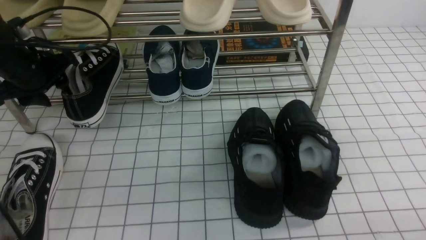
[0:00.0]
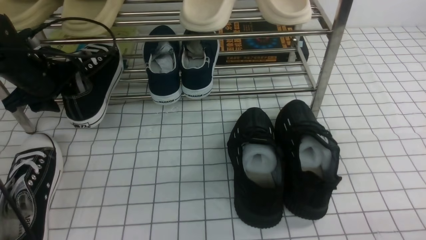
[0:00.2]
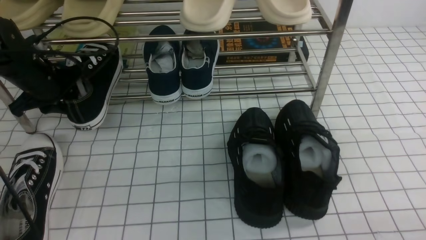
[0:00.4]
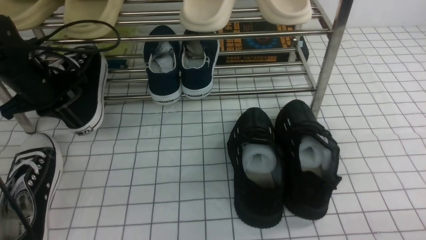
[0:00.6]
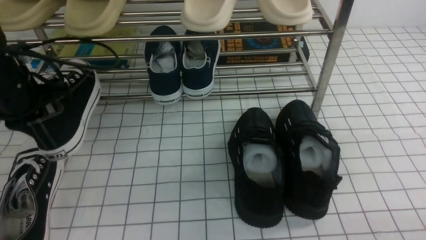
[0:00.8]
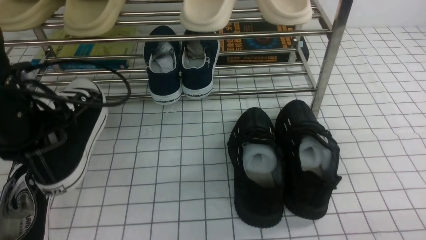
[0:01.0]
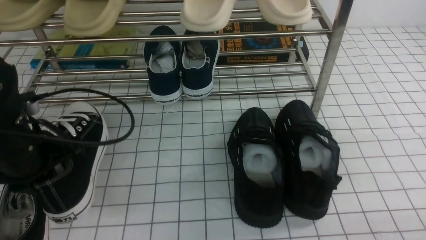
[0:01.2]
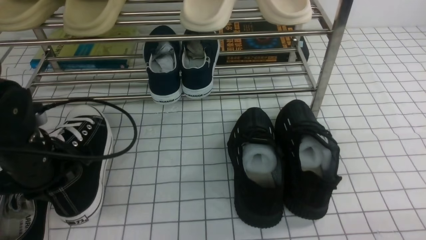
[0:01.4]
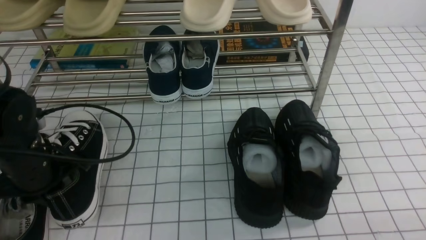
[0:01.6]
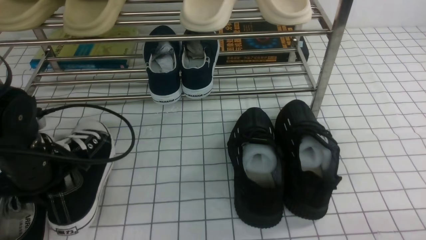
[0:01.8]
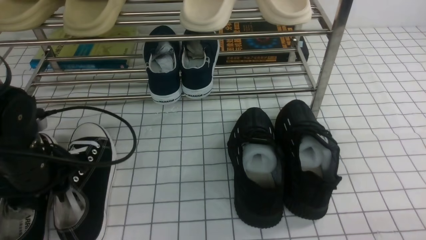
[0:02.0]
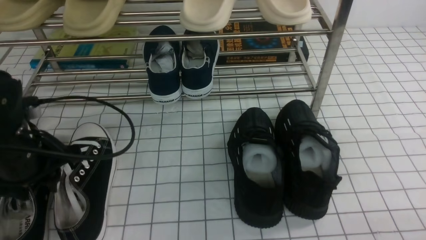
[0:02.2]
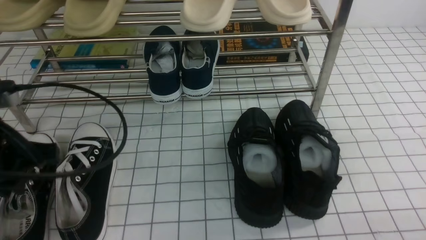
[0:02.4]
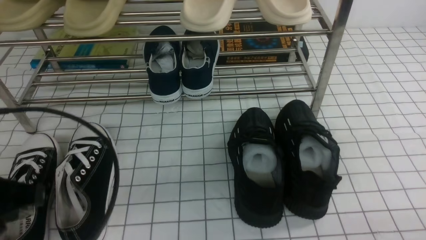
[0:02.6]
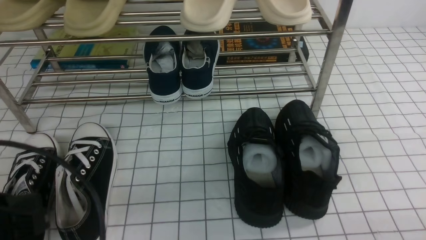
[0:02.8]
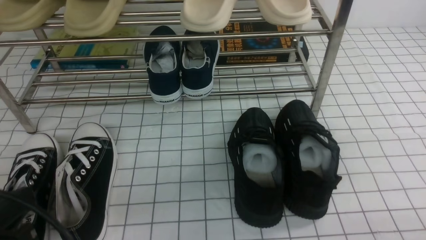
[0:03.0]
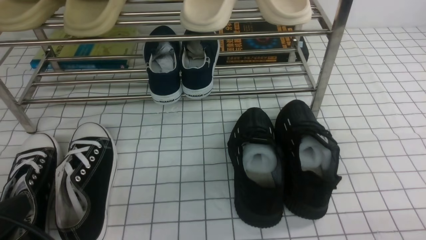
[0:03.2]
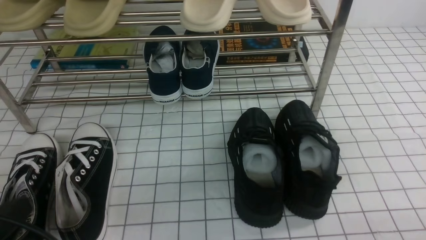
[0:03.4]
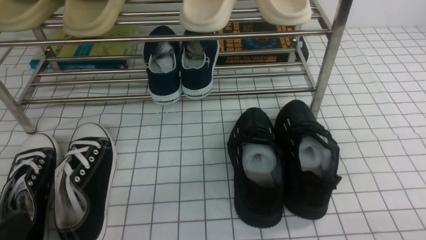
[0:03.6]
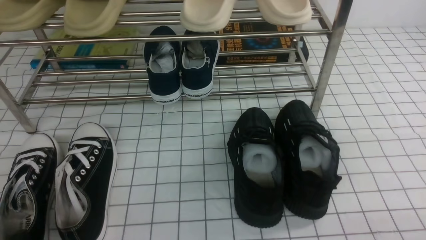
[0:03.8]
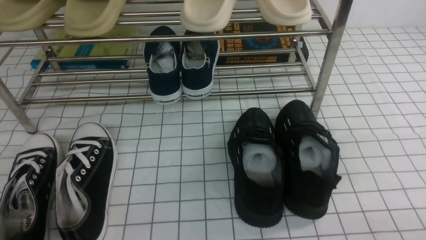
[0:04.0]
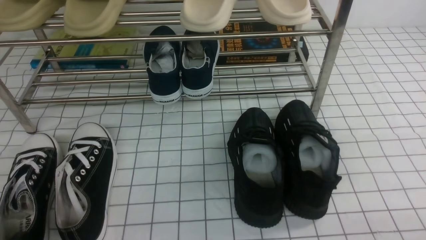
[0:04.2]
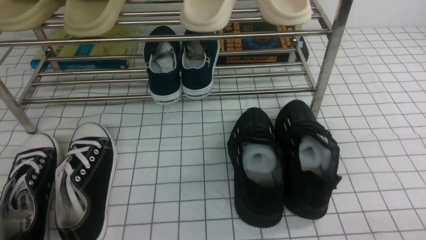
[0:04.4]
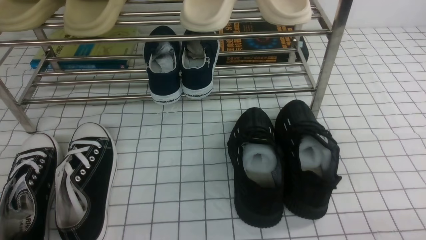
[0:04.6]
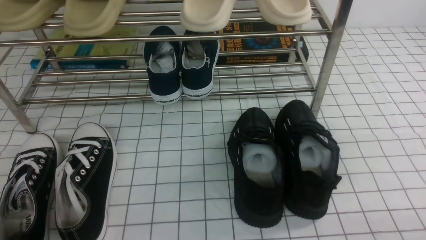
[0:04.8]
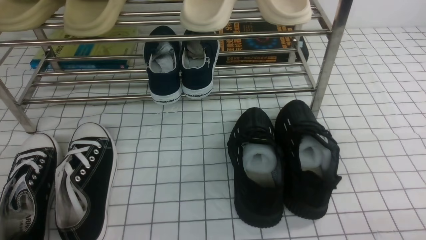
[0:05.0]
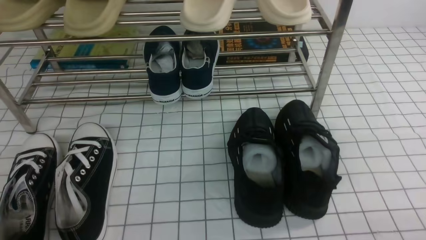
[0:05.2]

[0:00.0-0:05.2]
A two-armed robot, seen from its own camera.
Step, 0:00.6 to 0:02.2: Use your left arm to remove the clamped shoe from the shoe rack and put it down.
0:00.0 to 0:01.8: The left gripper is displaced backward by approximately 15 cm, and closes up.
0:01.8 to 0:03.4: The left gripper goes approximately 20 cm backward, and closes its fingers.
0:03.4 to 0:05.2: The left gripper is displaced downward by about 10 cm.

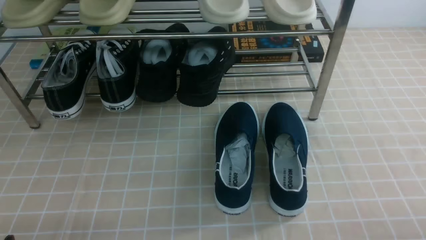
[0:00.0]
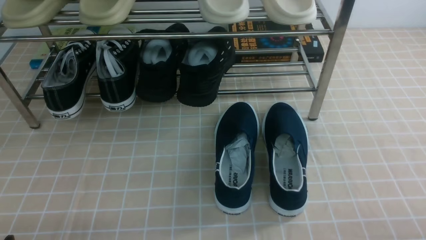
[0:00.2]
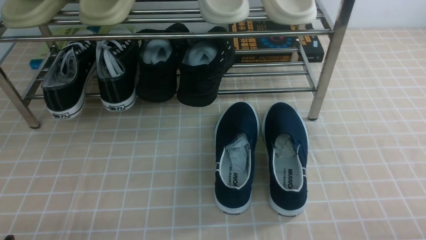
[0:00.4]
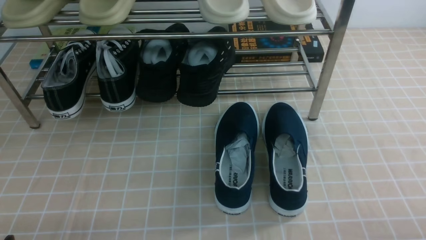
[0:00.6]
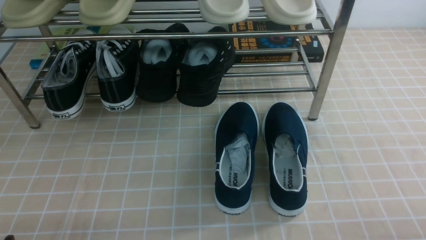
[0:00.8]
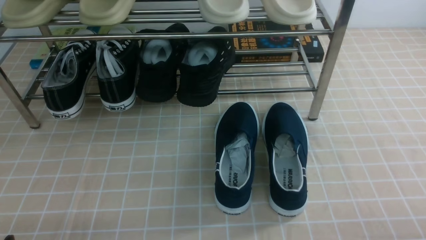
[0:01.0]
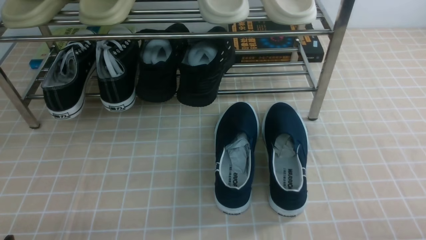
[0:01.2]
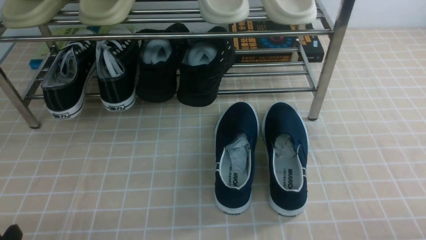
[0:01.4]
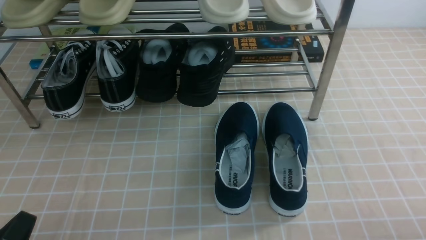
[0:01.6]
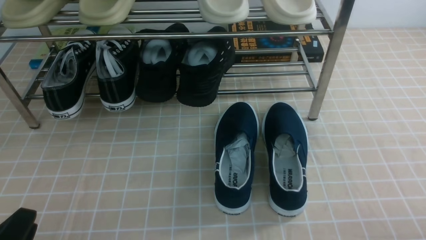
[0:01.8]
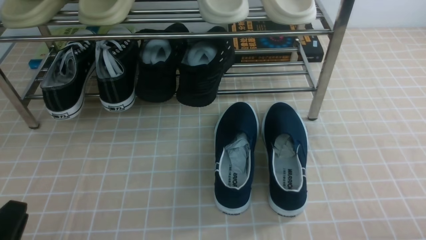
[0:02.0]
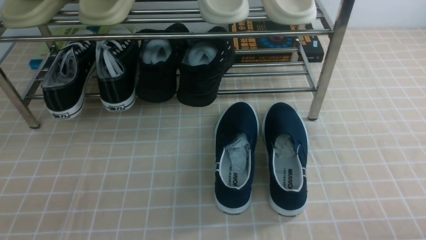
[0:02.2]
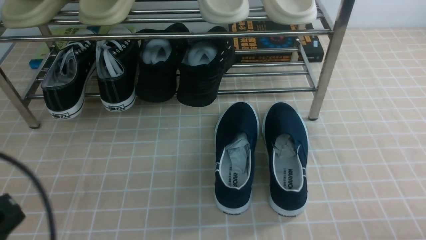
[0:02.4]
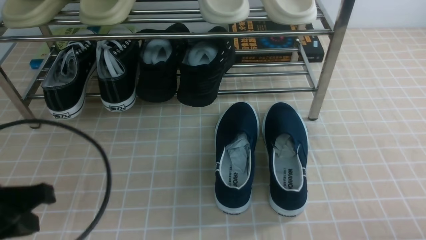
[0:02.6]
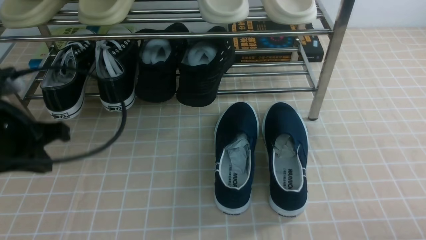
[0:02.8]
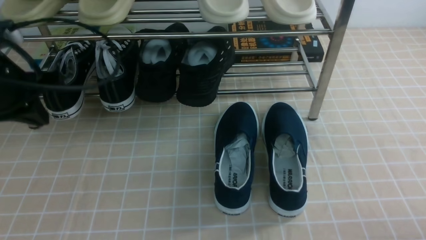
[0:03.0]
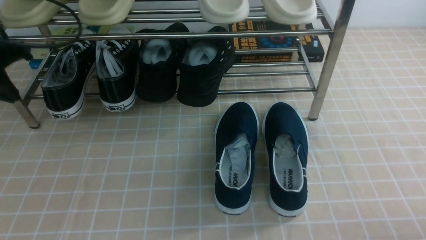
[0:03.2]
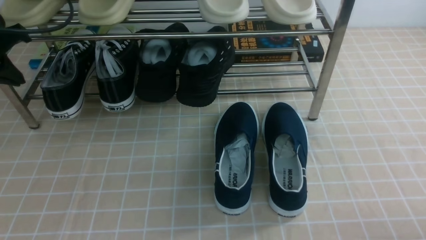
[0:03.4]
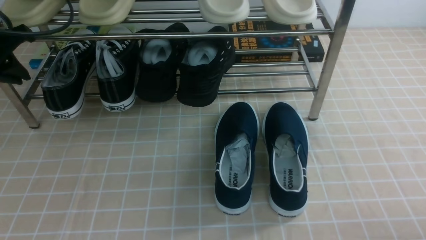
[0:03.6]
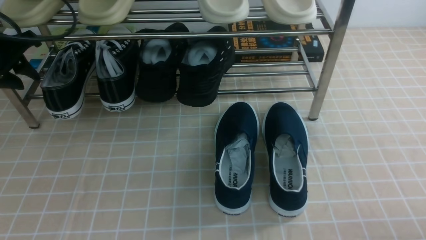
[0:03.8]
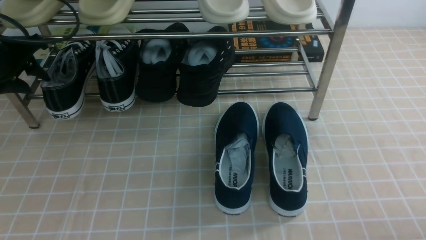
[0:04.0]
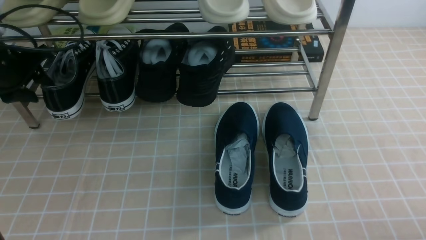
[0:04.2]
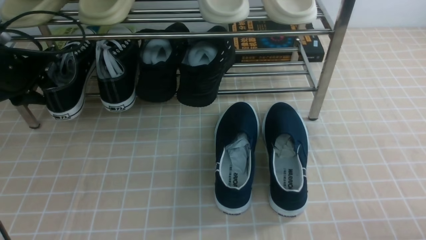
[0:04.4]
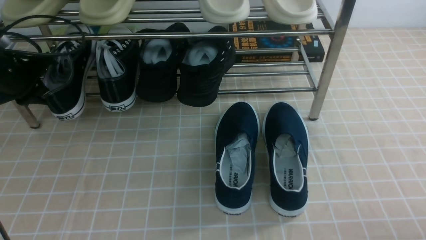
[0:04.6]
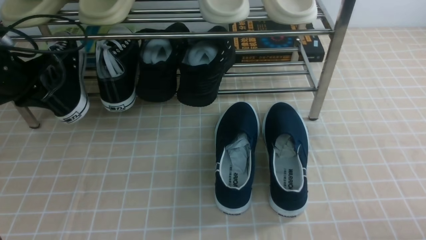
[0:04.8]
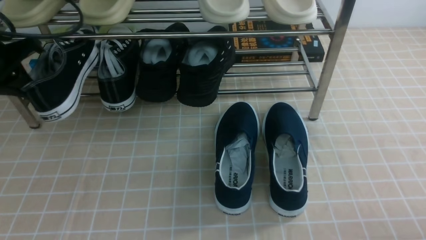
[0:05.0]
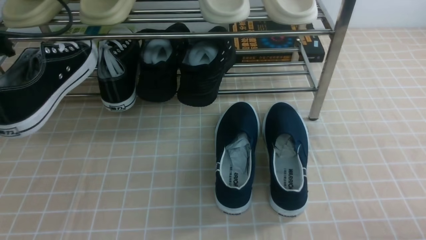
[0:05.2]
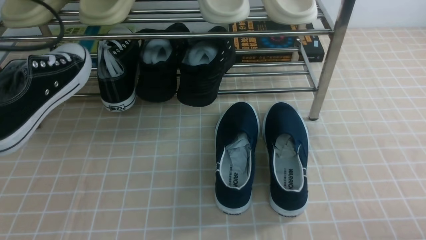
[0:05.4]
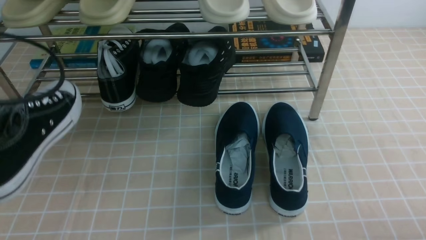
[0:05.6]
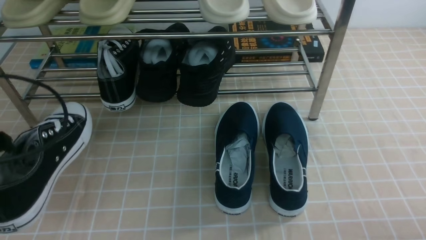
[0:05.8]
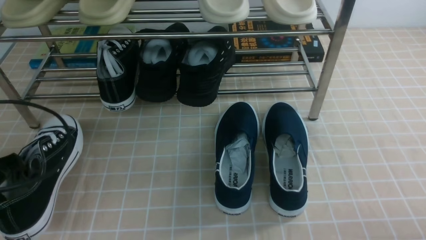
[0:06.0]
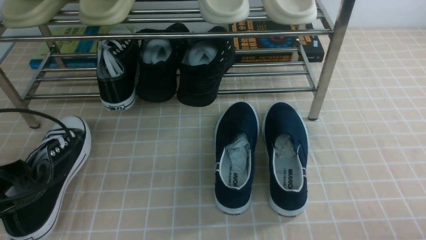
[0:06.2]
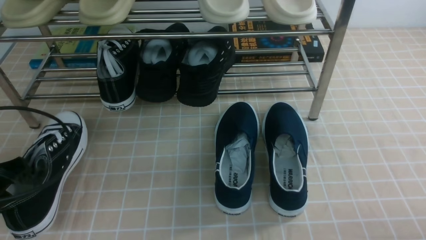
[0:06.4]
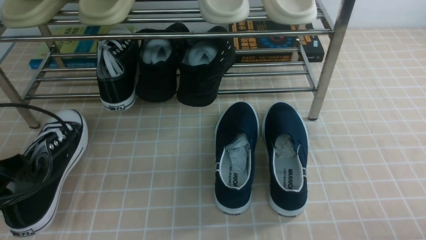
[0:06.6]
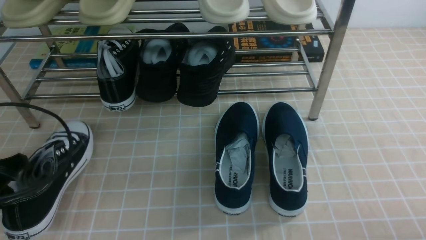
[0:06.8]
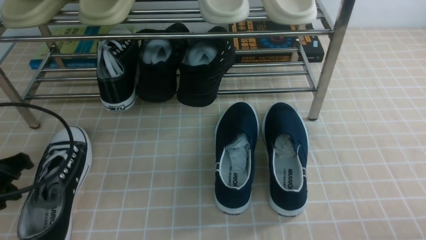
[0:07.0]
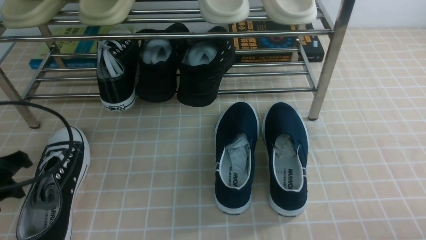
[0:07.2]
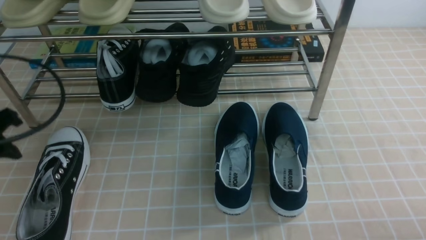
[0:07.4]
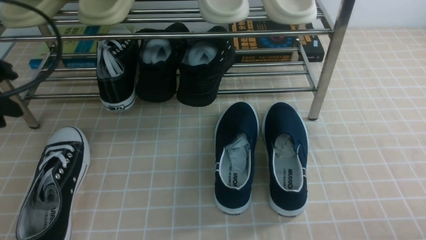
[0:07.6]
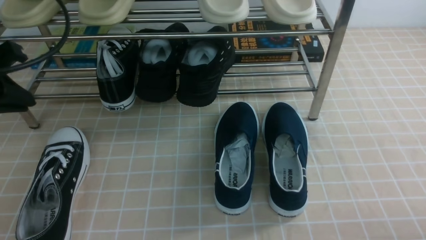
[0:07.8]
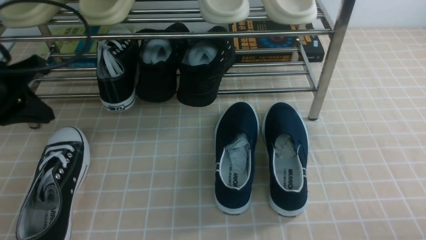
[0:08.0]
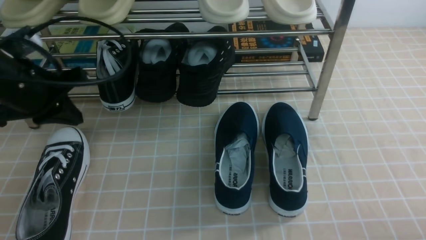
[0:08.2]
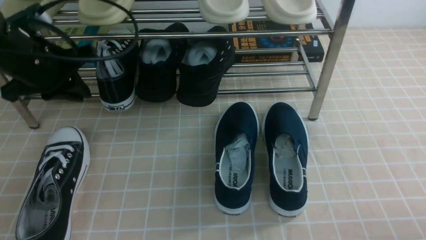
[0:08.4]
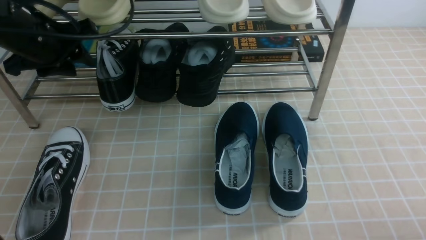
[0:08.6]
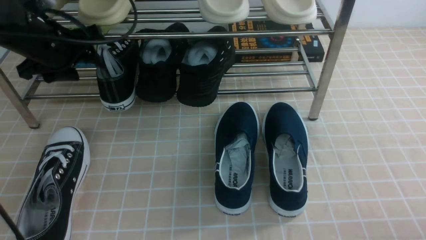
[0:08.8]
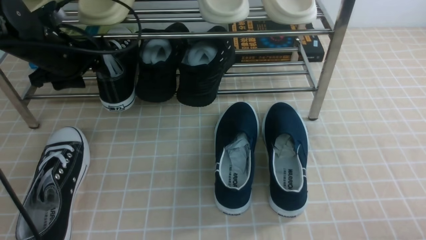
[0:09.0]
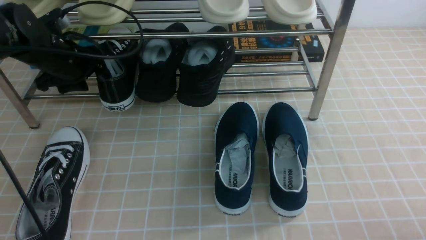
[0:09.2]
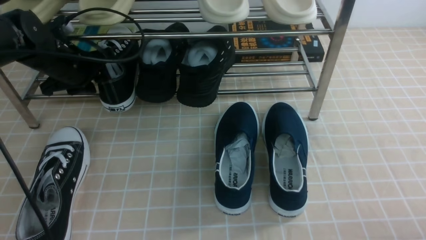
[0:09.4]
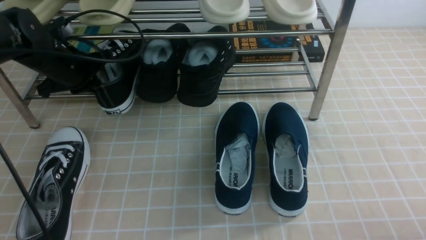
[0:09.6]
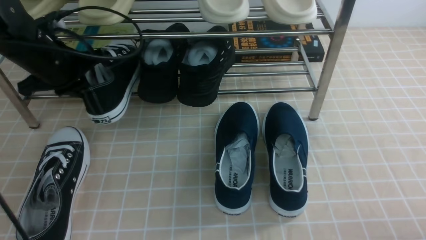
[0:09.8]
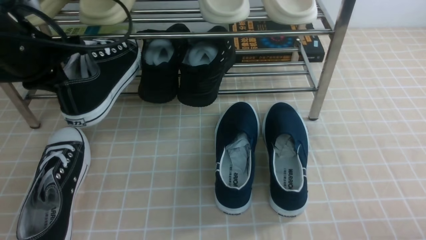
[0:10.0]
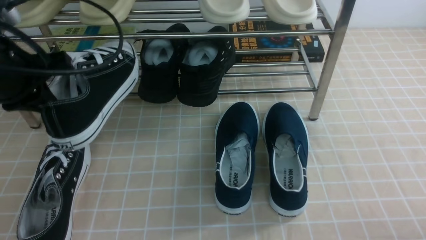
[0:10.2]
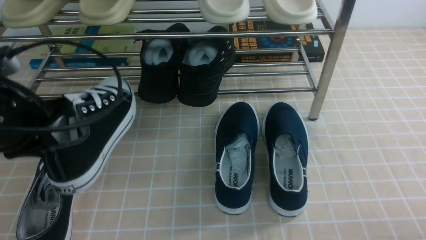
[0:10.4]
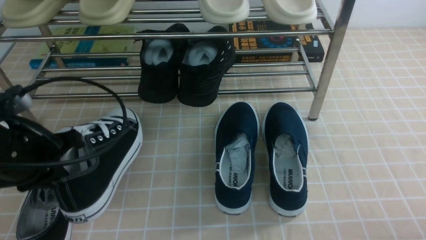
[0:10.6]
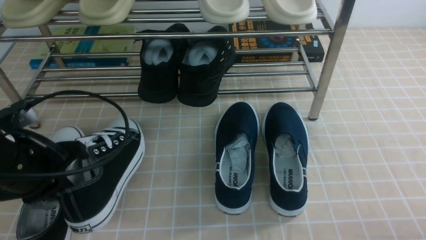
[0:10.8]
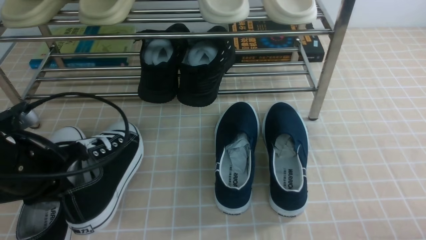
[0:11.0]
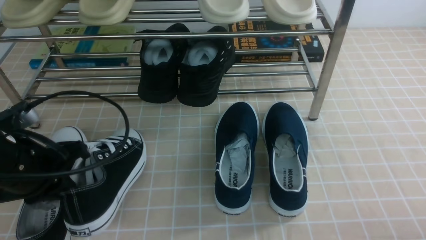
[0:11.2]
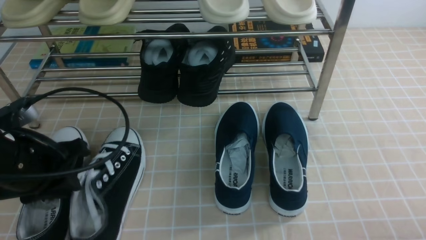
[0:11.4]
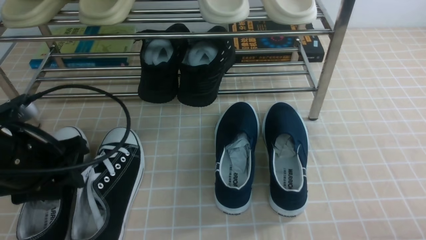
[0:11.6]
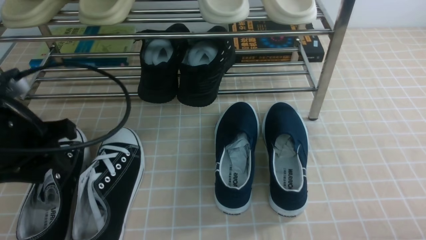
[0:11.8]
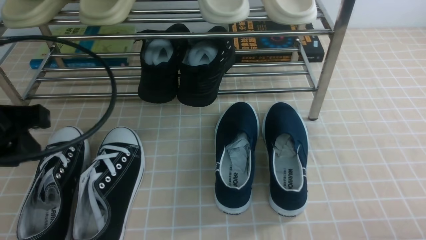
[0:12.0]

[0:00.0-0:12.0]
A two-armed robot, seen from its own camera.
Step, 0:00.0 to 0:04.4: use the left arm to clamp a shoe on the left side of the shoe rack.
Step, 0:04.6 to 0:07.0: Use your left arm to remove the clamped shoe from the shoe rack and put it down.
Step, 0:07.4 to 0:09.4: use the left arm to clamp a shoe on the left side of the shoe rack.
Step, 0:09.6 to 0:11.4: Use your left arm to remove the clamped shoe from the shoe rack and put it down.
0:01.6 to 0:03.0: The left gripper is displaced forward and upward by about 30 cm, and closes its fingers.
0:03.0 to 0:04.4: The left gripper heads forward, downward and to the left, covering some 15 cm, and opens its fingers.
0:04.4 to 0:06.0: The left gripper shifts about 20 cm backward, and closes.
0:06.0 to 0:07.6: The left gripper heads upward, covering about 10 cm, and opens its fingers.
0:07.6 to 0:09.0: The left gripper shifts about 15 cm forward, and opens its fingers.
0:09.0 to 0:10.4: The left gripper goes some 15 cm backward, and closes up.
0:10.4 to 0:12.0: The left gripper goes about 5 cm backward, and opens up.
